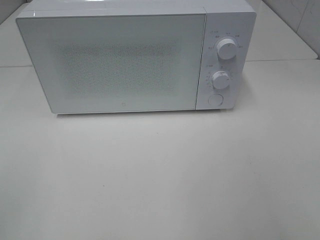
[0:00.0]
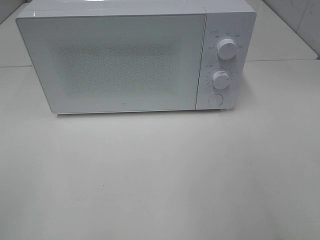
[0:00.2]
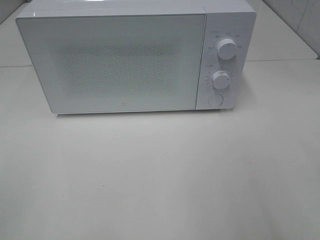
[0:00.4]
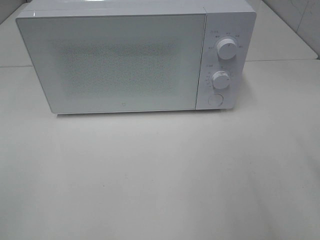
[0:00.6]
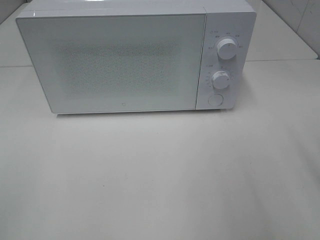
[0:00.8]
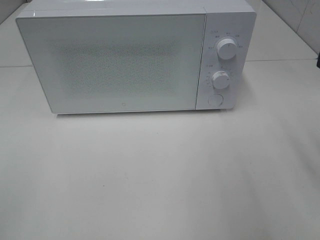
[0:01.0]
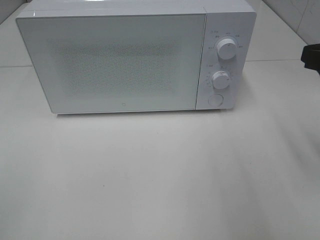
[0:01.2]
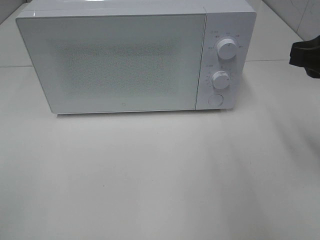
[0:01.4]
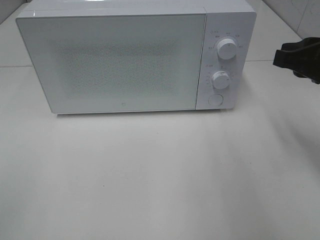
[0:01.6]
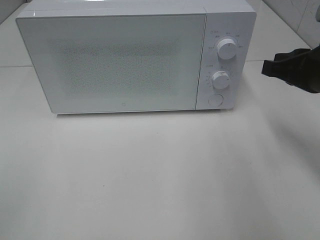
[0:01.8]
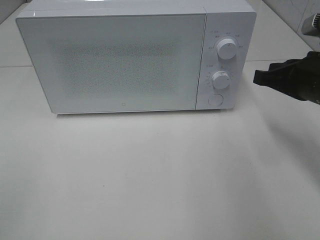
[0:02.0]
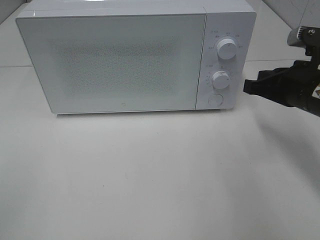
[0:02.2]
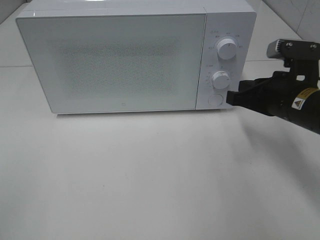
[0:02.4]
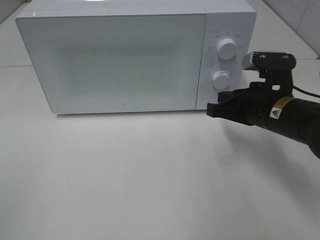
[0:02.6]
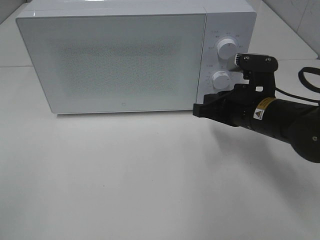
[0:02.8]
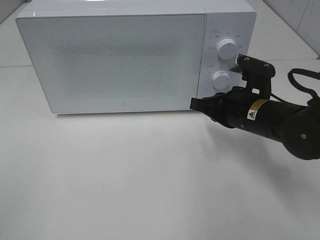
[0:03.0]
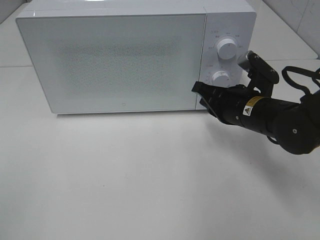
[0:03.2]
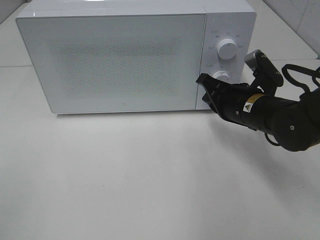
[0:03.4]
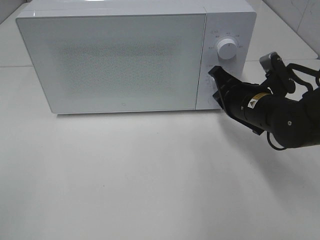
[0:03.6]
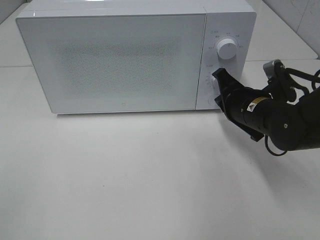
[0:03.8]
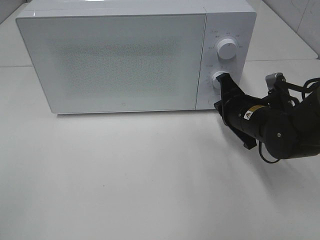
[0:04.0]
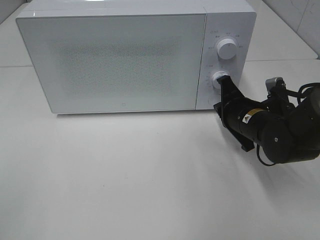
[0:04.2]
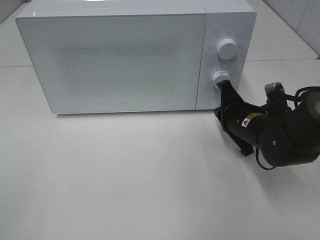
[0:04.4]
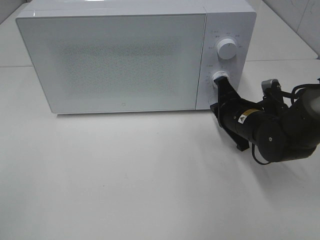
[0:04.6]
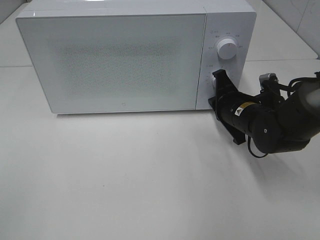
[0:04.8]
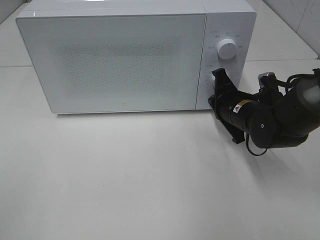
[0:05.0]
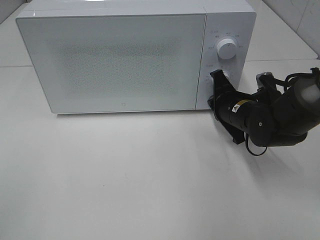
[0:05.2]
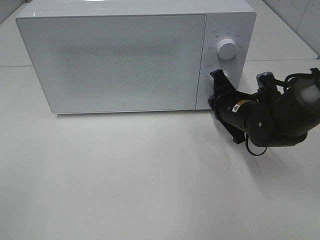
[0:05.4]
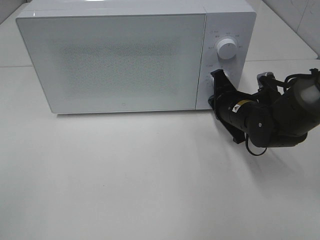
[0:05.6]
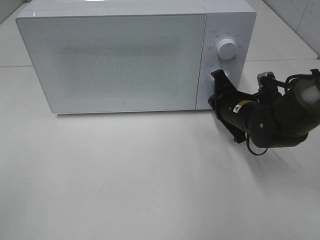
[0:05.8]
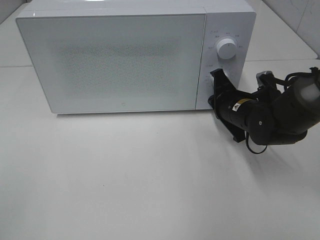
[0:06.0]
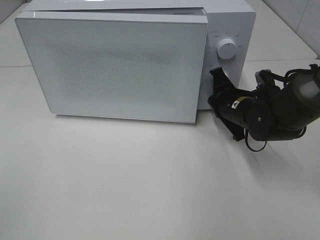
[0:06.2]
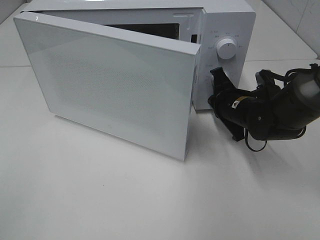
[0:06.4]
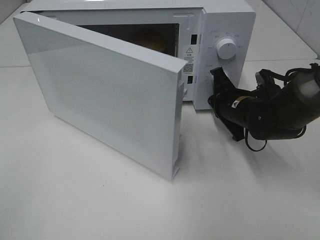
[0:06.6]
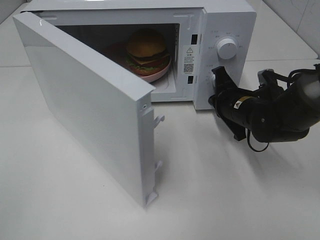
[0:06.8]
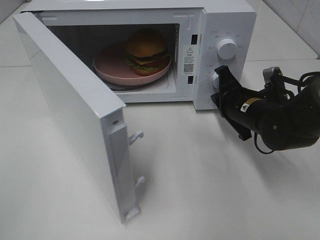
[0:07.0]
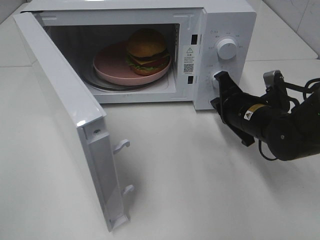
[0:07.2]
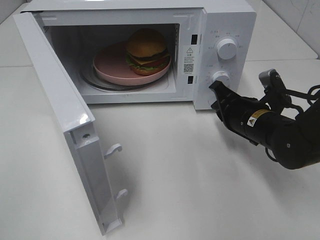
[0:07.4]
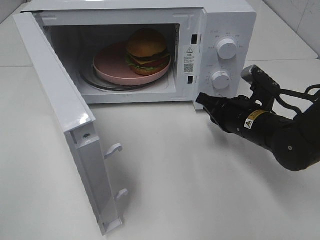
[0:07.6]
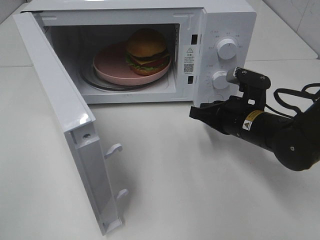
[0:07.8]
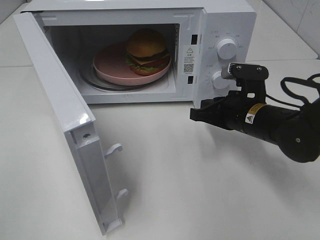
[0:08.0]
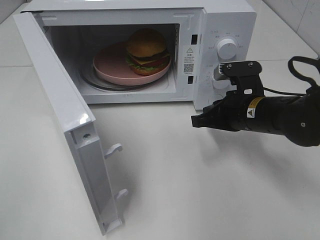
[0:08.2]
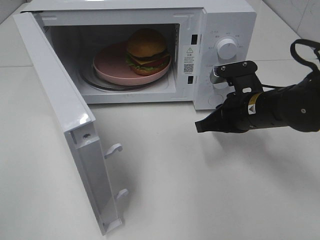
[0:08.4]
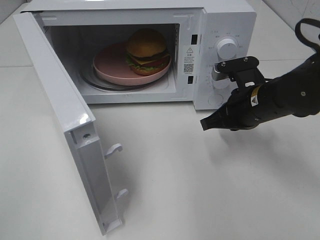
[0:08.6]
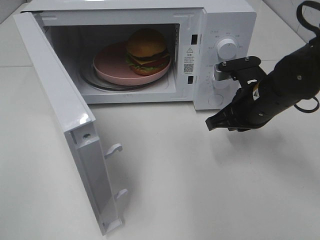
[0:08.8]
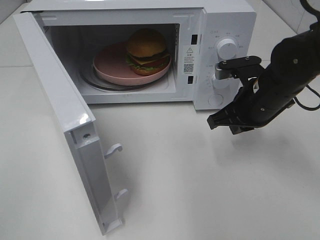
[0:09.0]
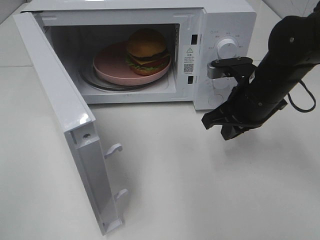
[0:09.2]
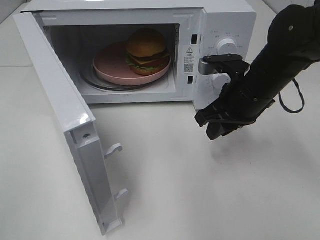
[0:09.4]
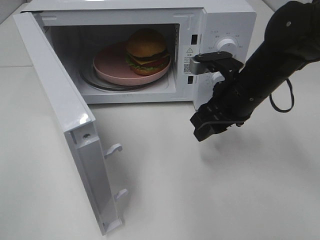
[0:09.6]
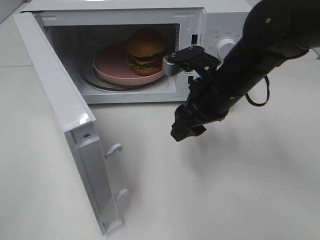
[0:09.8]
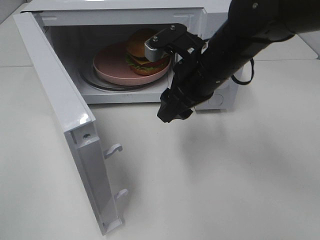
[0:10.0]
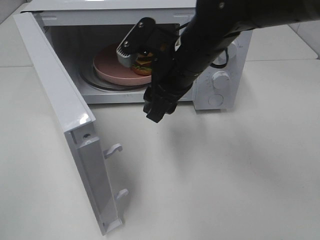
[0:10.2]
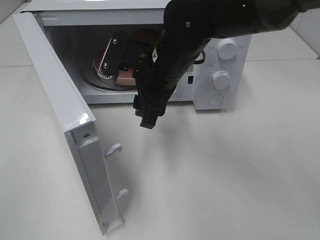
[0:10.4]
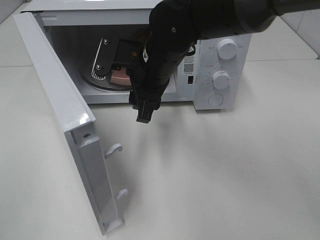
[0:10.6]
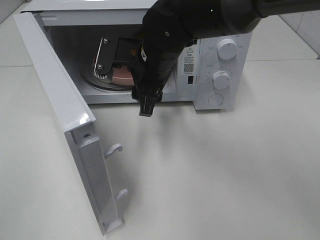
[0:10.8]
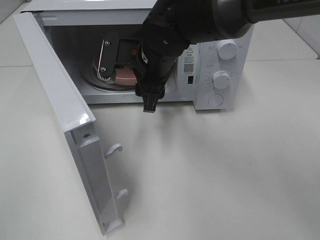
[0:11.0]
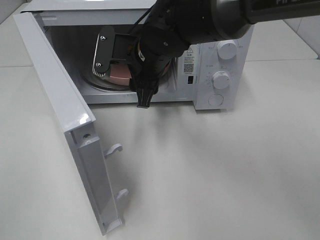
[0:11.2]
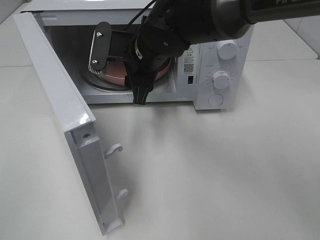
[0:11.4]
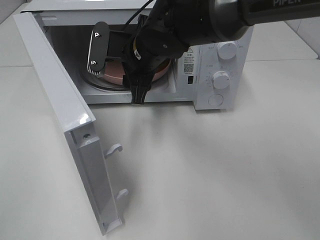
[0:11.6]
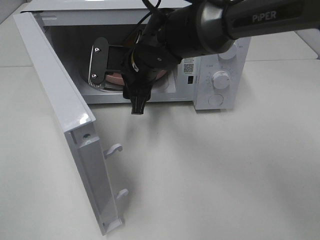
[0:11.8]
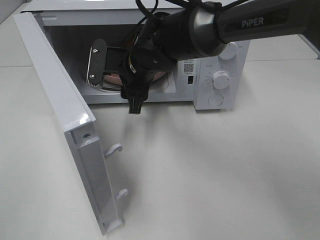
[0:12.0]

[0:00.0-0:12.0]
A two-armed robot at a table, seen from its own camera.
Task of the whole recording: Heat the burger.
Step, 0:00.0 to 0:07.0: Right hand: press the switch.
0:00.0 to 0:01.6: The right gripper heads forward, covering roughly 20 cm.
0:01.6 to 0:03.0: The right gripper goes some 15 cm downward, to the left and forward, and closes.
0:03.0 to 0:04.4: The right gripper moves approximately 5 cm.
0:04.4 to 0:06.0: The grippers move only a little.
0:07.6 to 0:09.0: The right gripper heads upward, covering about 5 cm.
0:09.0 to 0:10.4: The right gripper travels to the left by some 15 cm, and opens up.
0:10.4 to 0:12.0: The right gripper goes some 5 cm forward.

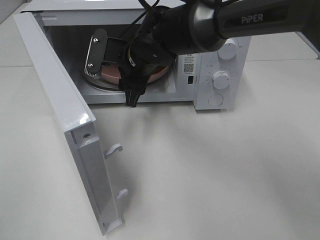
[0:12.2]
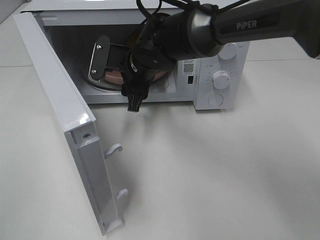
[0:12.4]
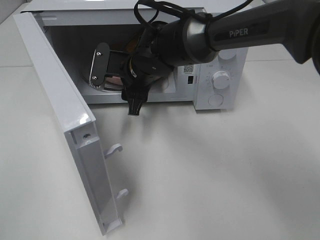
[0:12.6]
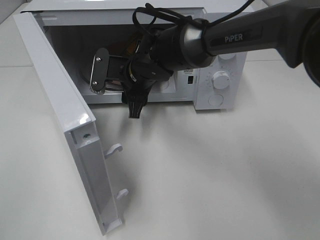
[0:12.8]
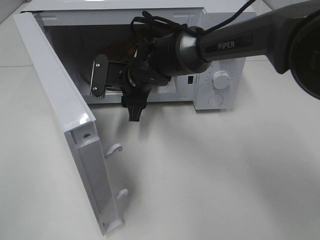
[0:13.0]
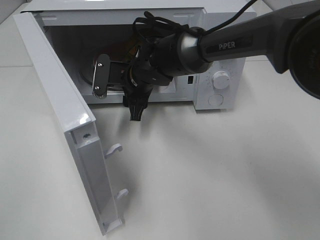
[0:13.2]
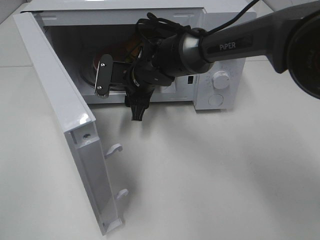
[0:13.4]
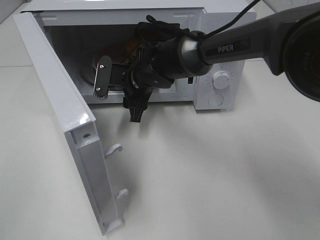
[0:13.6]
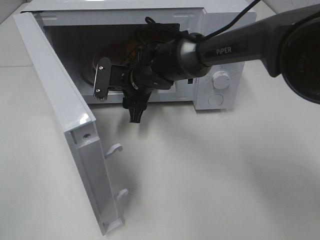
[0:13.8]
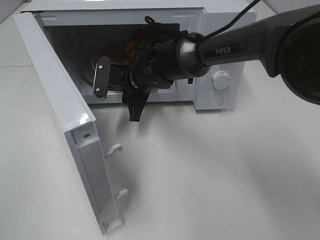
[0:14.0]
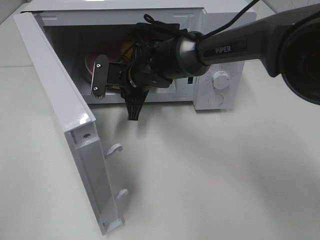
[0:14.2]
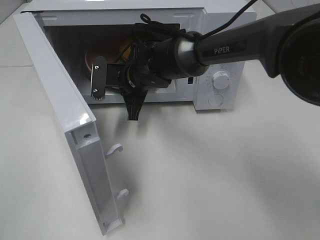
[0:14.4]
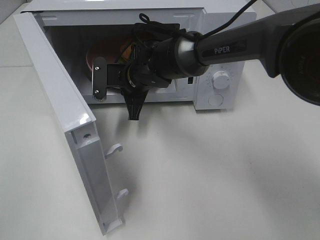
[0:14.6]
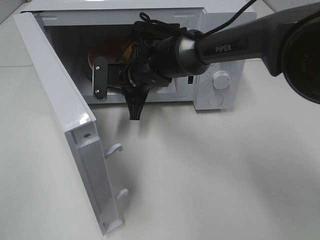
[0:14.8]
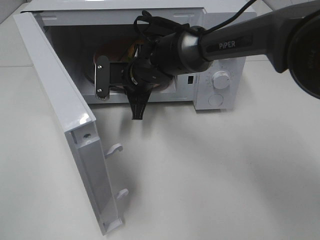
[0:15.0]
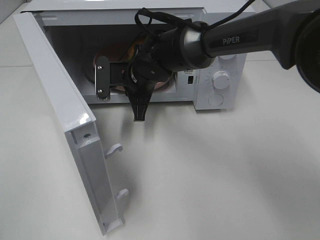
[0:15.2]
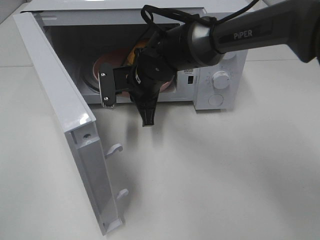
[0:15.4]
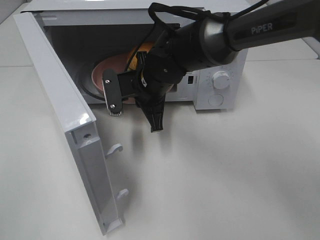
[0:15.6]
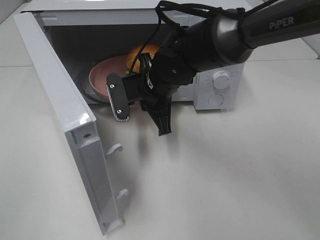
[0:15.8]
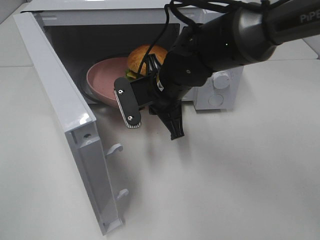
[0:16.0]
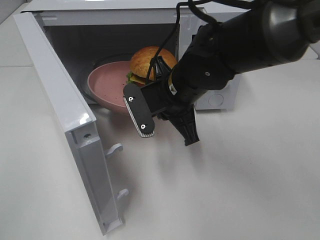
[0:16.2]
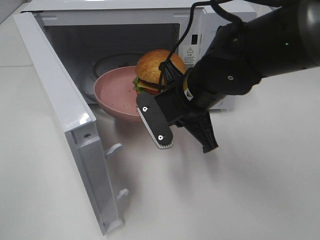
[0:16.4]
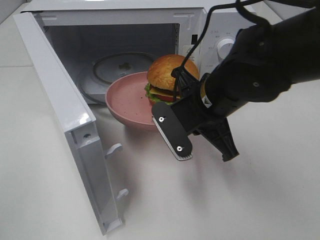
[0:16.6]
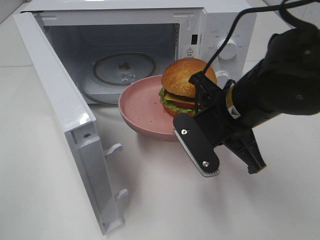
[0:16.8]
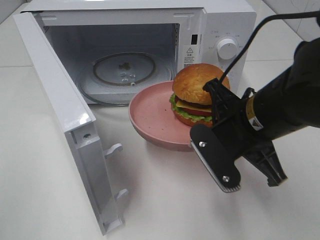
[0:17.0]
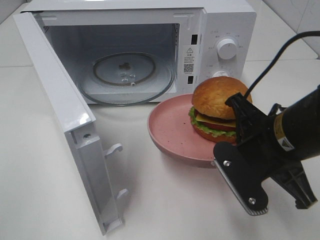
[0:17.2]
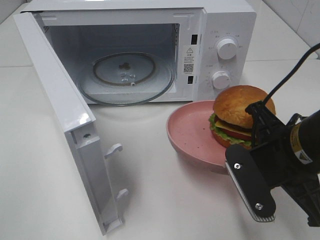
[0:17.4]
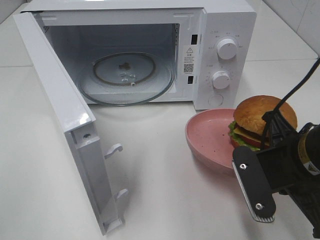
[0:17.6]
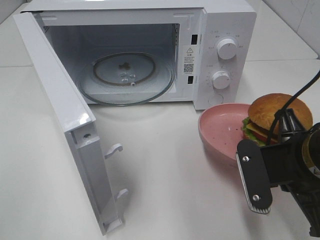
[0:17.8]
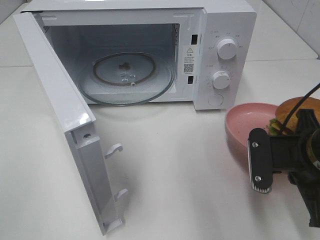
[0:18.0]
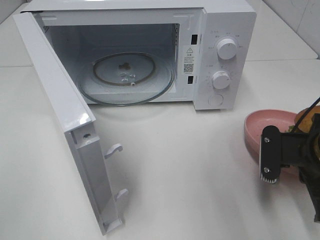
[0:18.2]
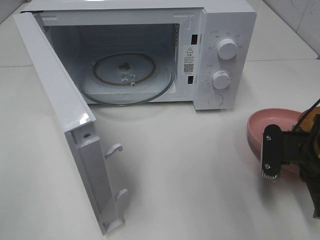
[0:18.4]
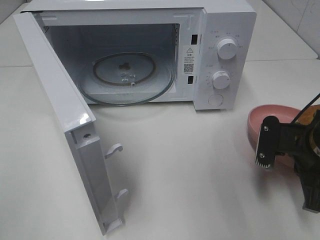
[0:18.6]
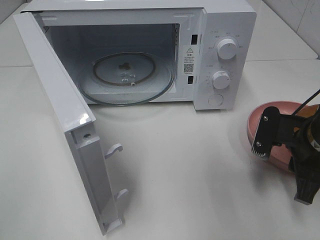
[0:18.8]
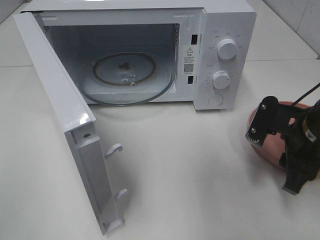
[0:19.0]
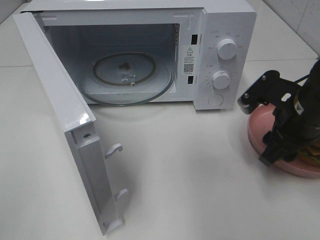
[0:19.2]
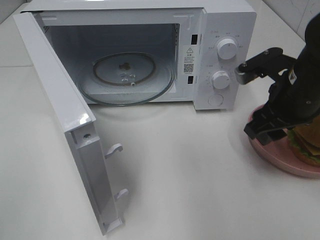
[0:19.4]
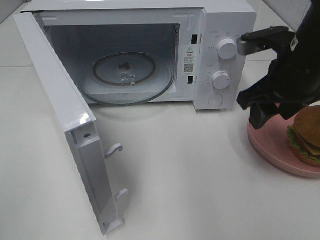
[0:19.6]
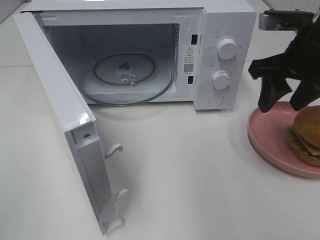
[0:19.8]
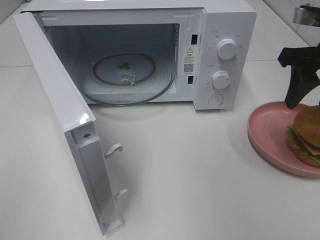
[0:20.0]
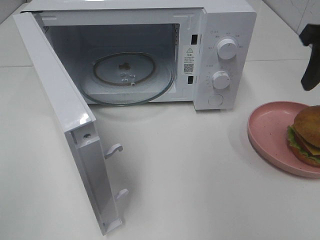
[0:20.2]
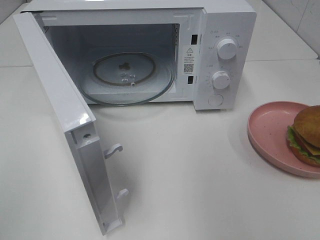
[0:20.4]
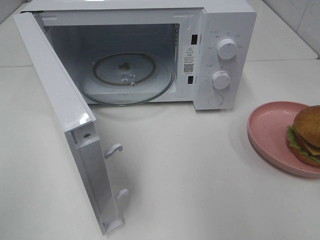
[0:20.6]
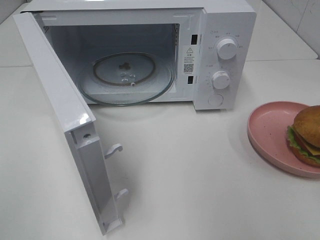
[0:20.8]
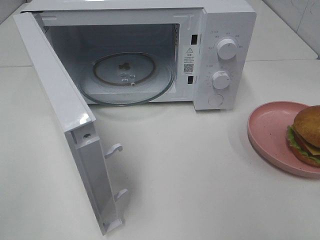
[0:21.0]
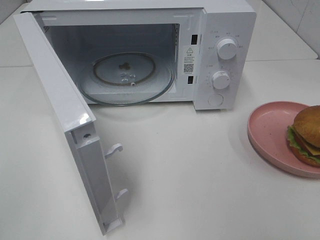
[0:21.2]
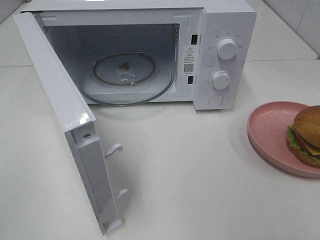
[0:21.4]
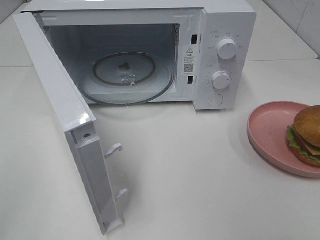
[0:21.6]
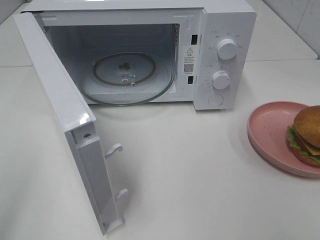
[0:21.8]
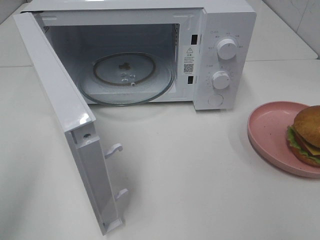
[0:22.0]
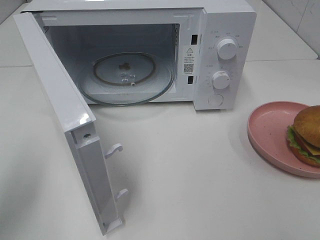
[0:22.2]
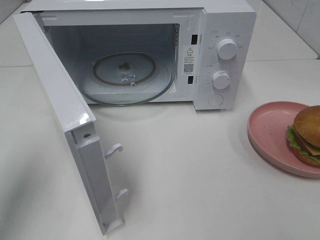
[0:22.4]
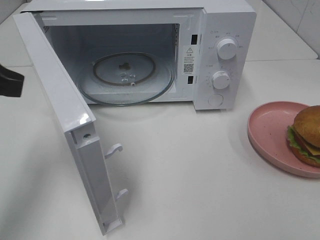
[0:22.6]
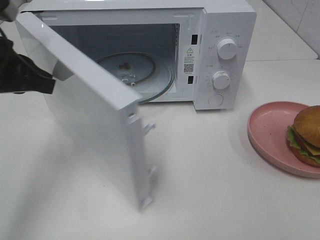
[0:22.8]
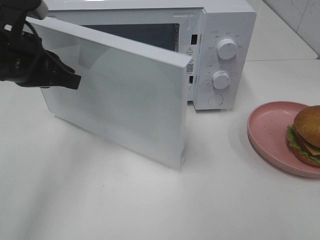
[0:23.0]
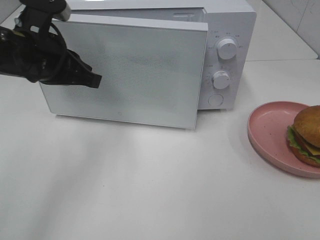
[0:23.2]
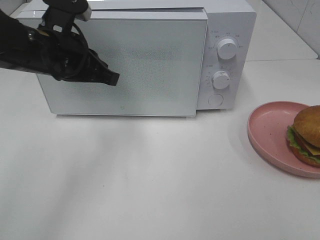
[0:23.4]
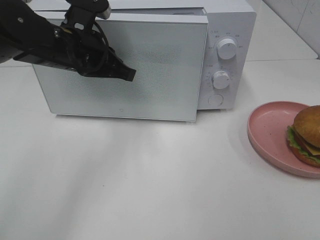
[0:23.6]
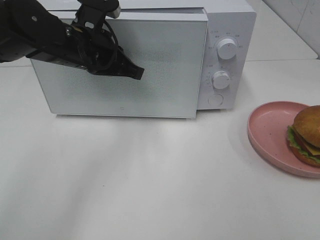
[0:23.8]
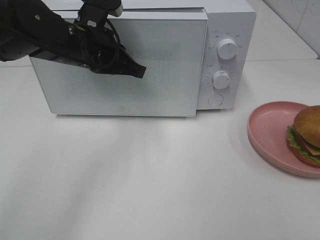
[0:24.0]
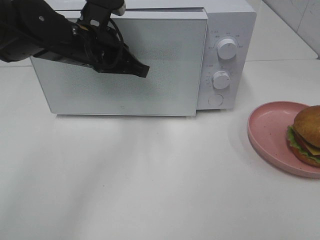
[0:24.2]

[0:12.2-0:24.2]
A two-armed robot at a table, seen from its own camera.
Task of the whole recording: Heat the burger.
Step, 0:12.2 to 0:14.4: Right hand: grab the plate with the hamburger.
Step, 0:14.6 to 0:18.8: Right hand: place the plate on the table.
0:12.2 to 0:13.8: The right gripper travels downward by roughly 5 cm.
0:13.8 to 0:15.2: The right gripper closes.
0:15.2 to 0:16.6: The right gripper goes approximately 15 cm backward and to the right.
0:16.6 to 0:18.2: The right gripper heads to the right, covering about 15 cm.
0:18.2 to 0:19.8: The right gripper moves upward and forward, approximately 15 cm, and opens.
0:19.8 to 0:21.2: The right gripper shifts roughly 25 cm backward.
0:21.2 to 0:22.6: The left gripper shifts some 25 cm forward.
0:22.6 to 0:24.2: The left gripper shifts about 20 cm to the right and forward.
